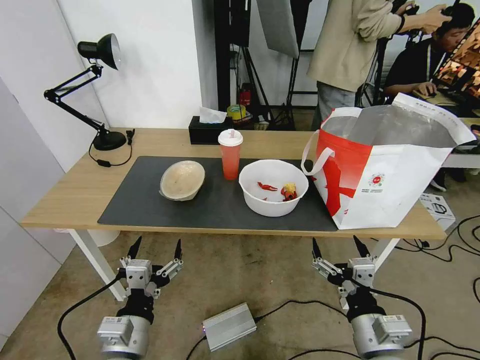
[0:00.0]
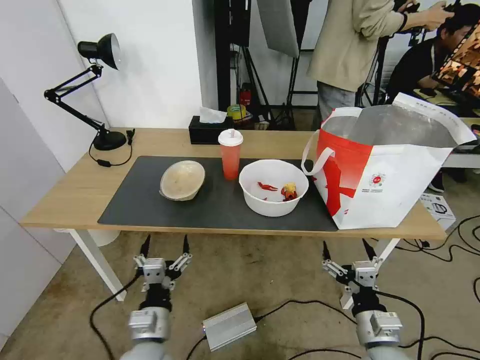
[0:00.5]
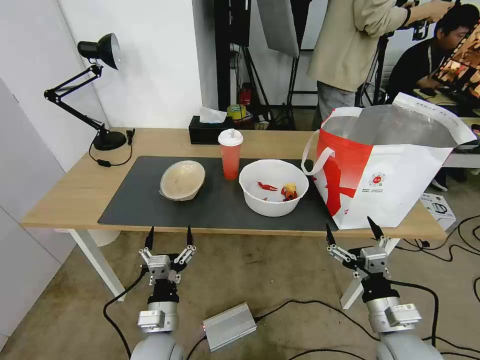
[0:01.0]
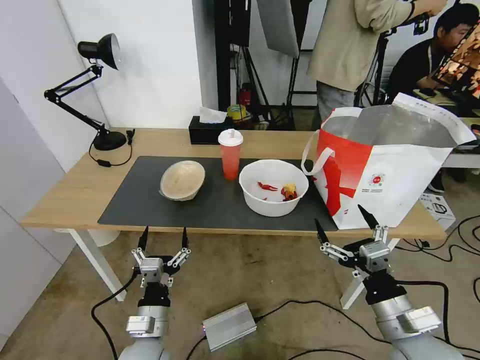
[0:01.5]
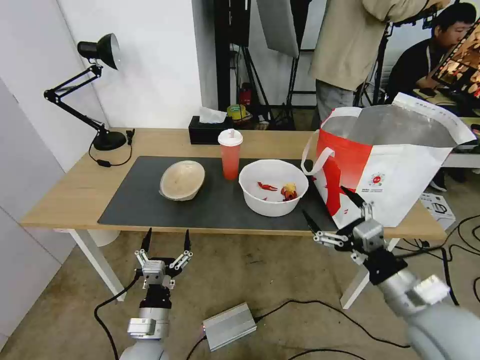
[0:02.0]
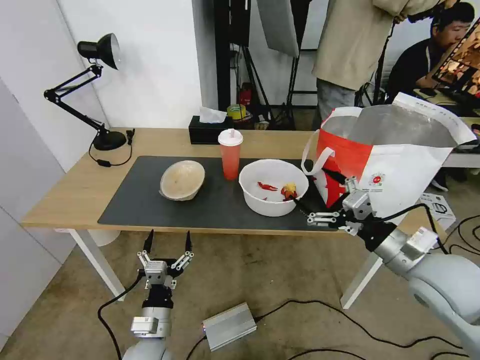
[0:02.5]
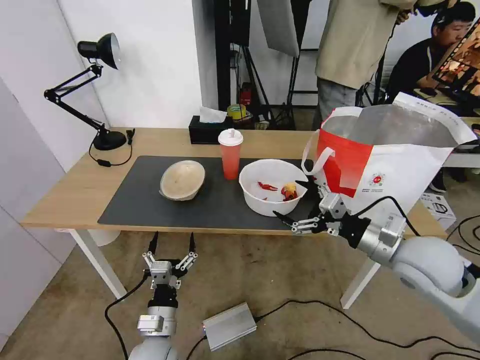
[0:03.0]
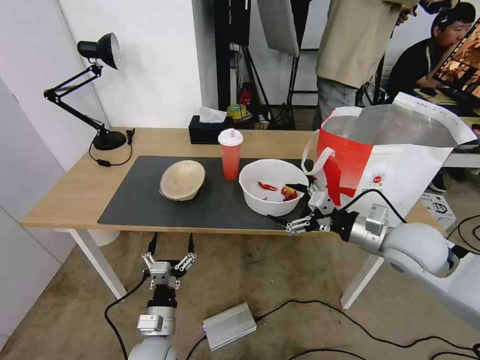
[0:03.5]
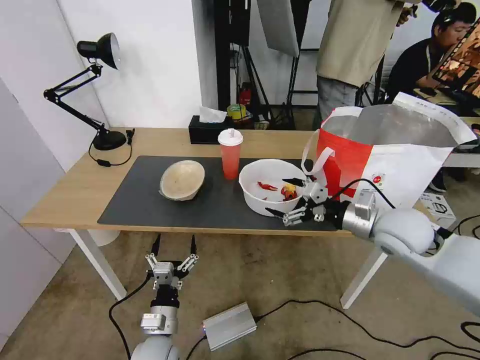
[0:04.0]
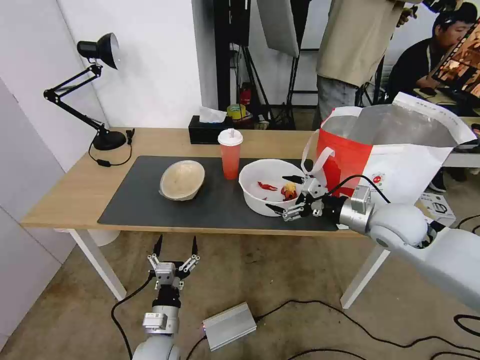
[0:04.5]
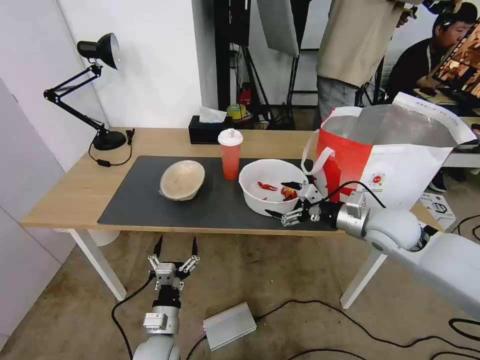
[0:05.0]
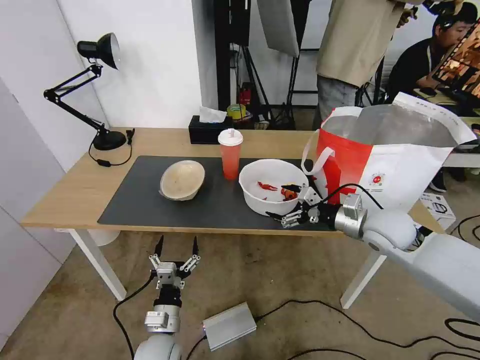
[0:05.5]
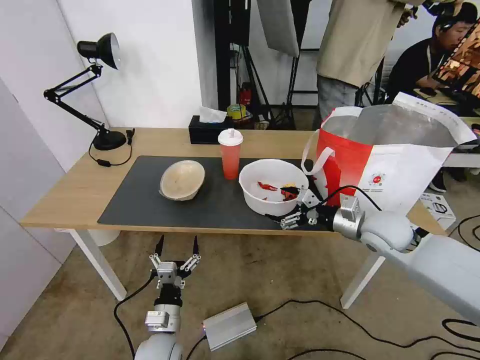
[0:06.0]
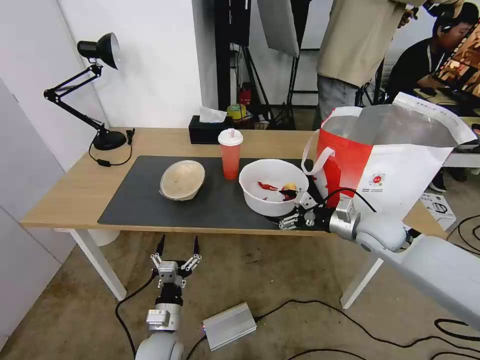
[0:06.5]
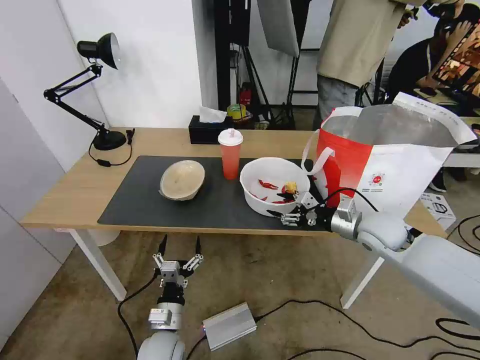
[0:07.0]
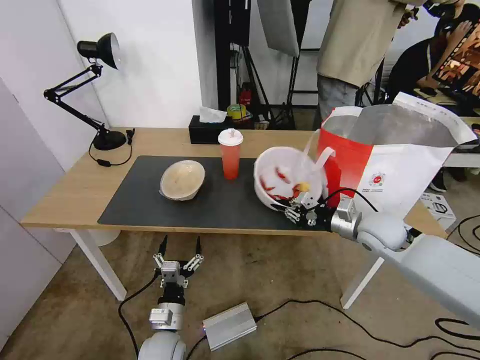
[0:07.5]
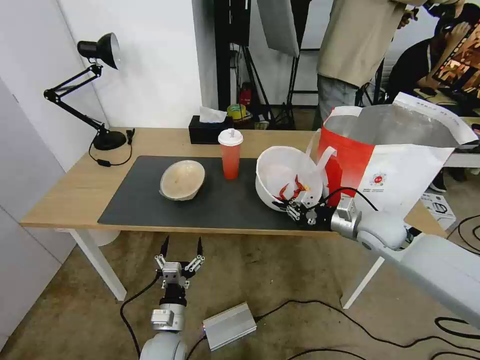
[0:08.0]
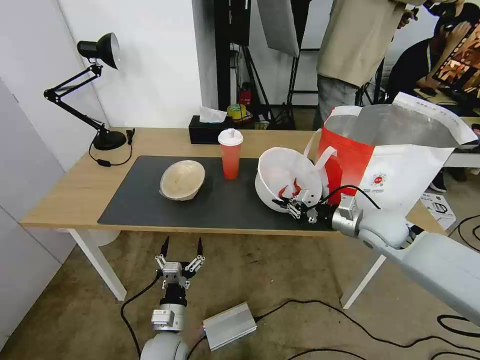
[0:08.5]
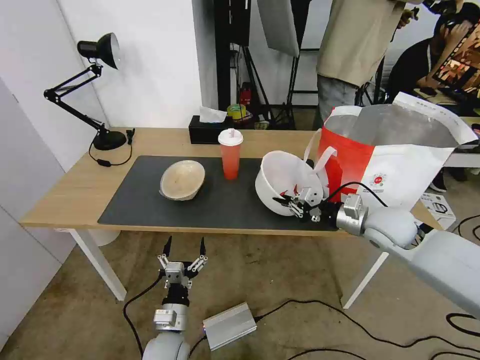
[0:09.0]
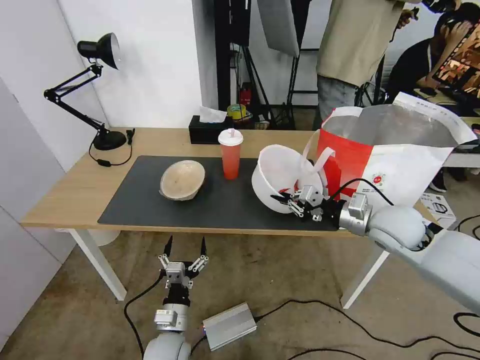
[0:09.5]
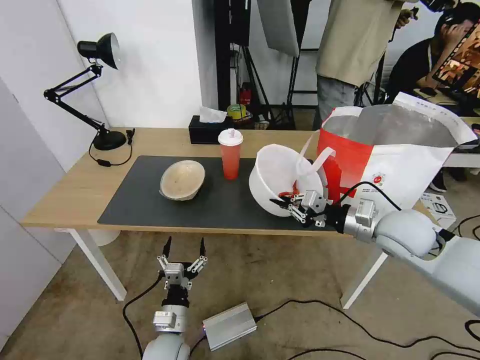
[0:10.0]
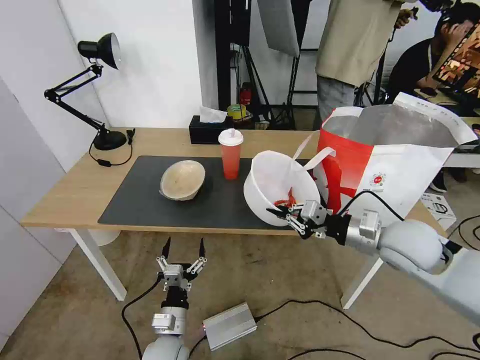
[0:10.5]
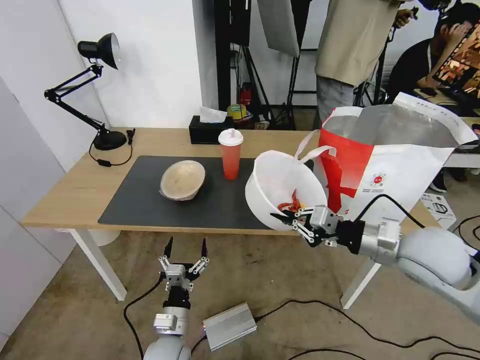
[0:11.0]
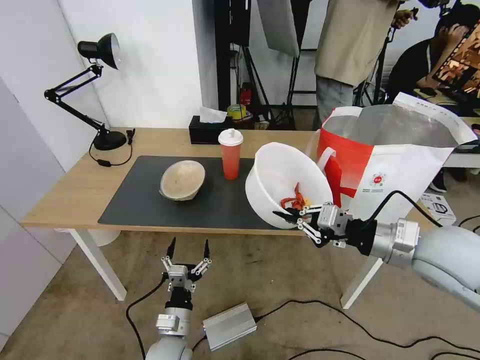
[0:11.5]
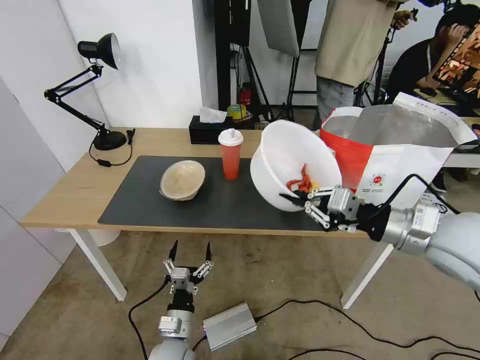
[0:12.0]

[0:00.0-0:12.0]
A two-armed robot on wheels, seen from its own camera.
Task of the whole recording: Pick up the trash from the table and place it into the takeout bag.
0:02.0 to 0:04.0: The right gripper moves forward, some 20 cm.
0:04.0 to 0:06.0: The right gripper shifts by about 5 cm.
0:06.0 to 0:08.0: The right gripper closes its fingers.
0:08.0 to 0:10.0: The right gripper heads upward, covering about 5 cm.
0:10.0 to 0:12.0: The right gripper heads upward and backward, covering roughly 10 cm.

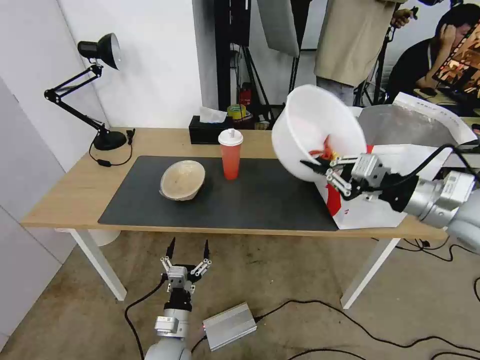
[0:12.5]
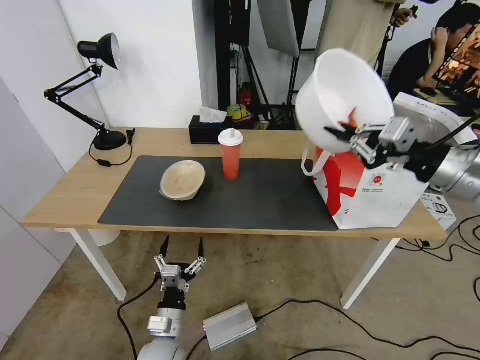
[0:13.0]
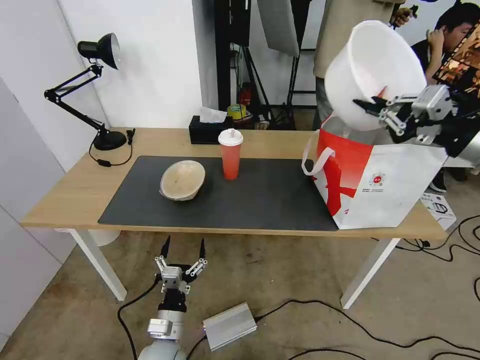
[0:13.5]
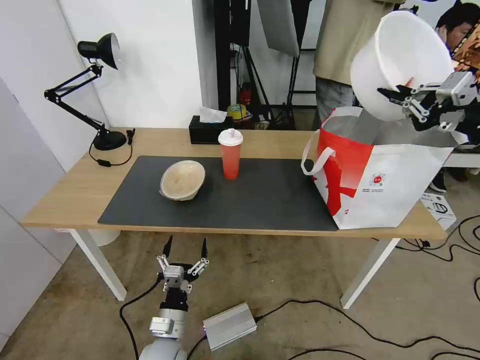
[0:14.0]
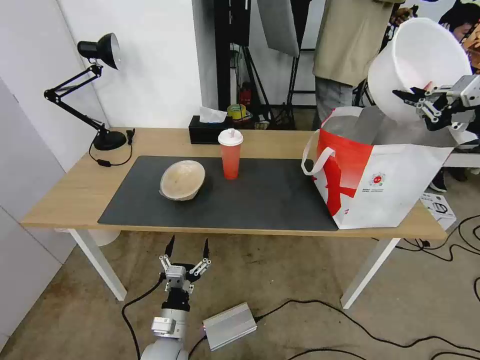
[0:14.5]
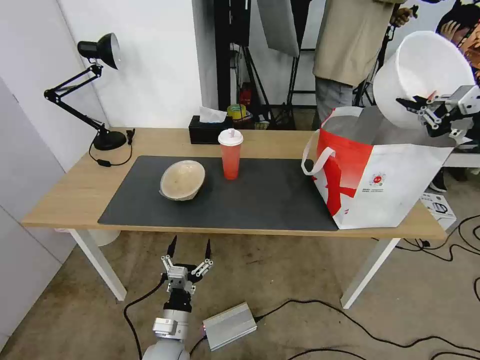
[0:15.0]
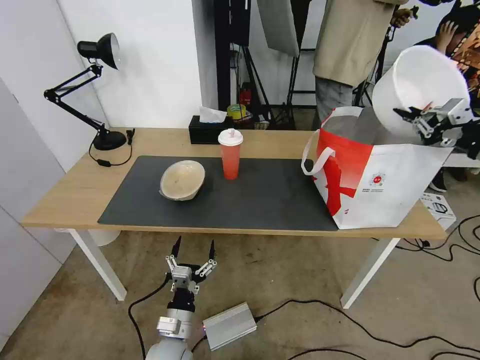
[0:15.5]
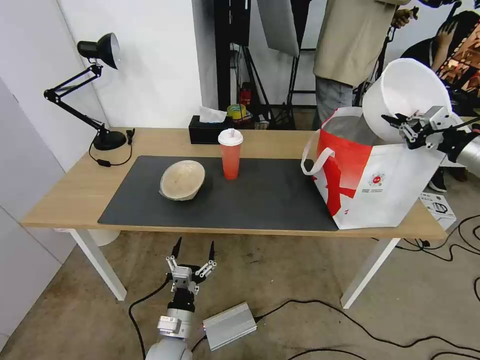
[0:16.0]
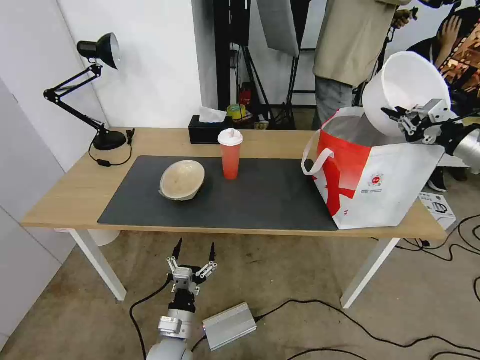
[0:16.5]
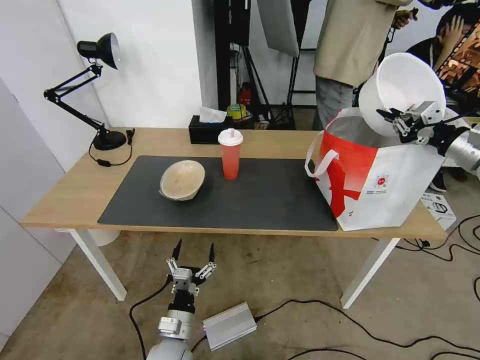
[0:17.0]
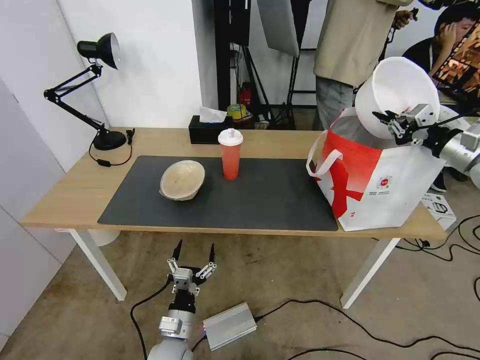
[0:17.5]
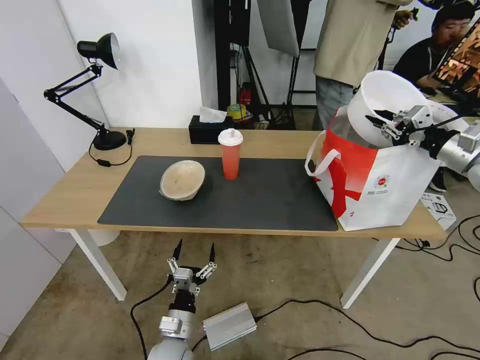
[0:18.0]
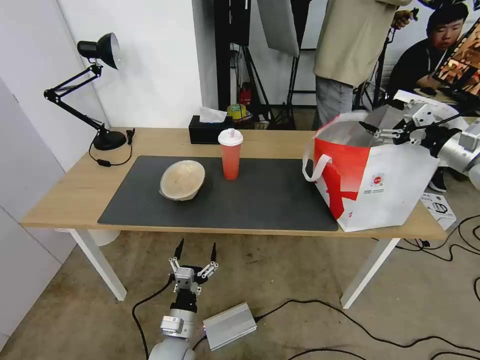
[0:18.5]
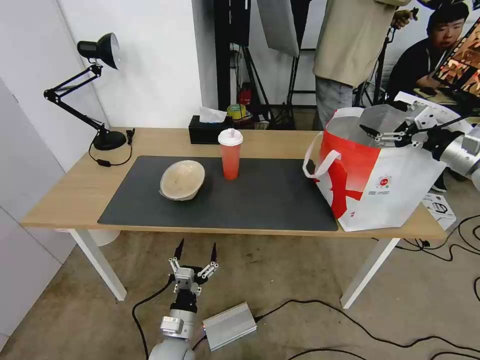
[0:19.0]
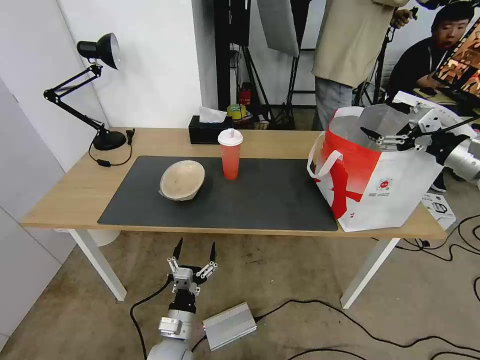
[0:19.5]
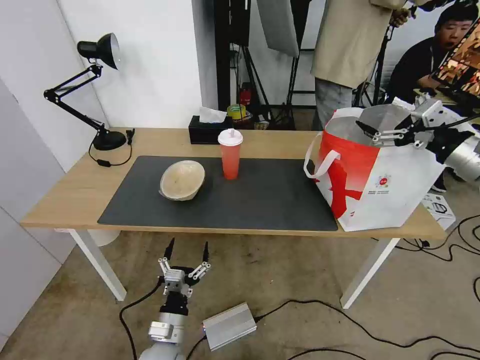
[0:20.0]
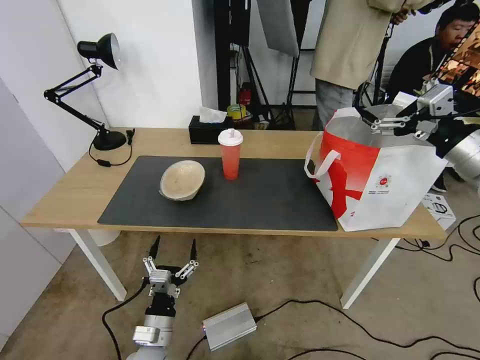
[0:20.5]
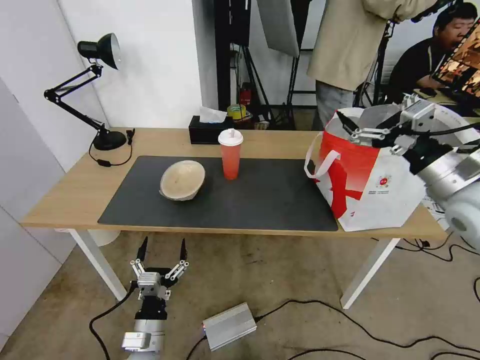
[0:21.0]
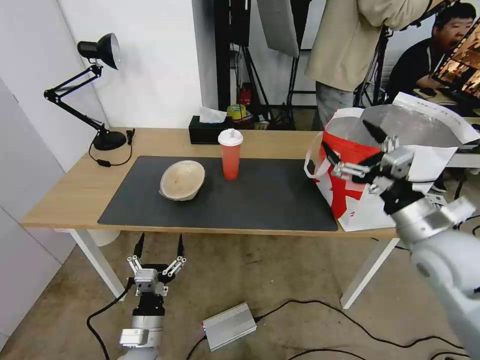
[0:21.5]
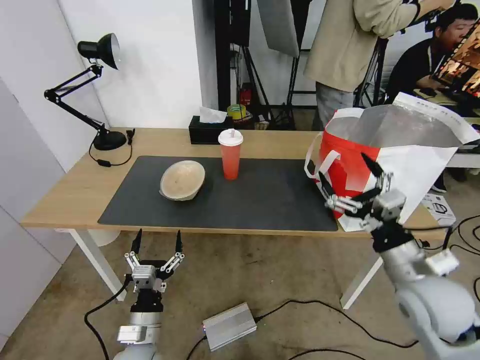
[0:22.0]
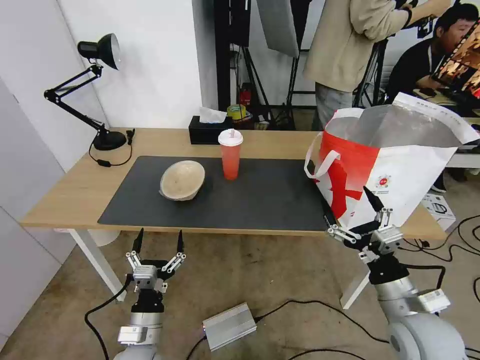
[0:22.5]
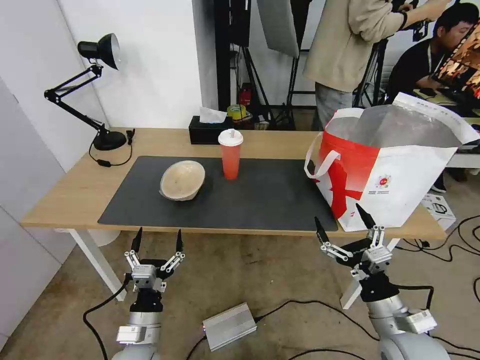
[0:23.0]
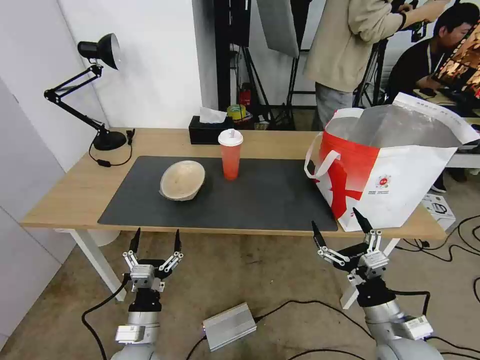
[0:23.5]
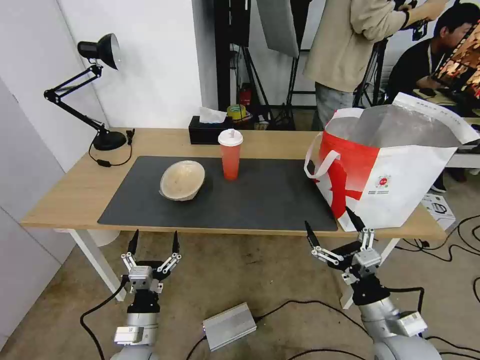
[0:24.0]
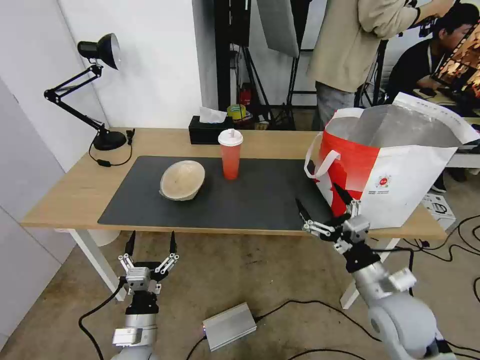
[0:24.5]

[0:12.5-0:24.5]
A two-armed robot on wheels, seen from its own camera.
Task of the whole recording: Pick up the trash from the table and place it into the takeout bag.
0:12.5 to 0:14.5: The right gripper shifts about 15 cm to the right, upward and forward.
0:14.5 to 0:16.5: The right gripper shifts approximately 10 cm downward and forward.
0:16.5 to 0:18.5: The right gripper opens its fingers.
0:18.5 to 0:20.5: The left gripper changes place by roughly 5 cm, while the right gripper shifts approximately 10 cm backward and to the left.
0:20.5 to 0:22.5: The right gripper is displaced downward, backward and to the left by about 30 cm.
0:22.5 to 0:24.5: The grippers move only a little.

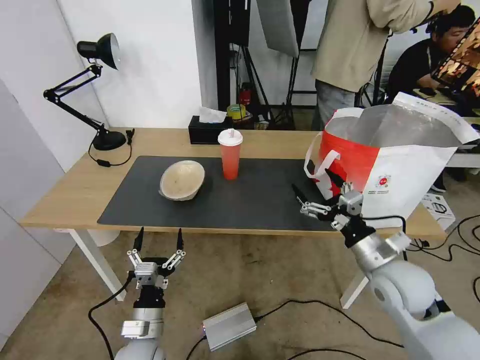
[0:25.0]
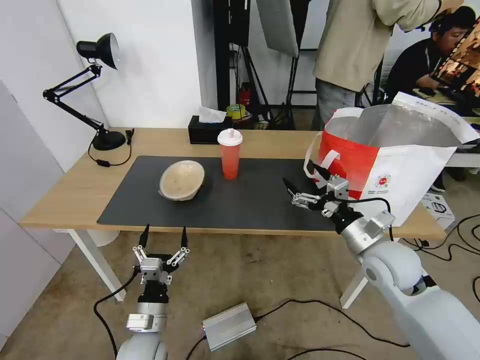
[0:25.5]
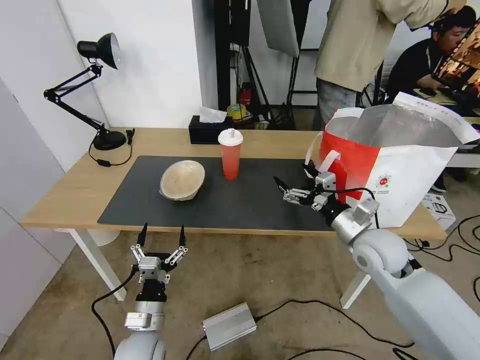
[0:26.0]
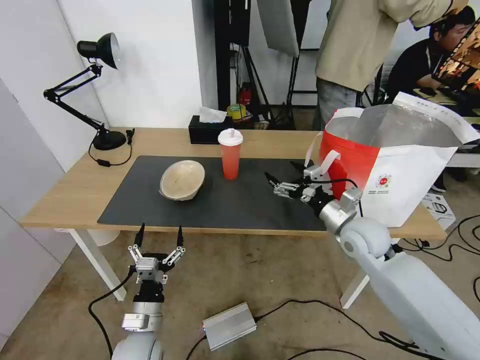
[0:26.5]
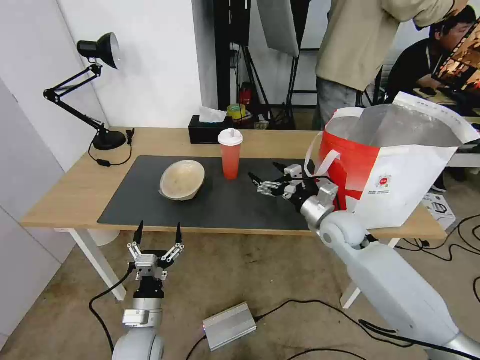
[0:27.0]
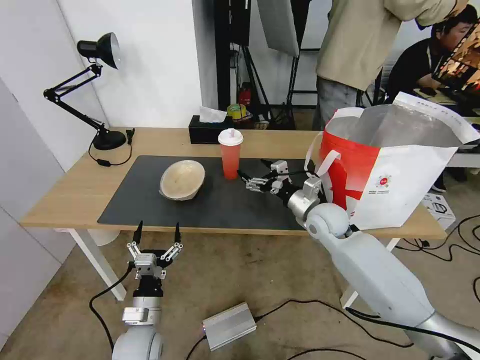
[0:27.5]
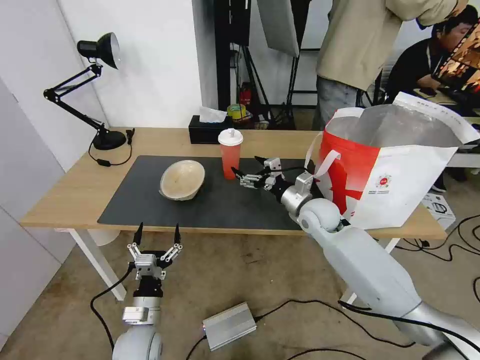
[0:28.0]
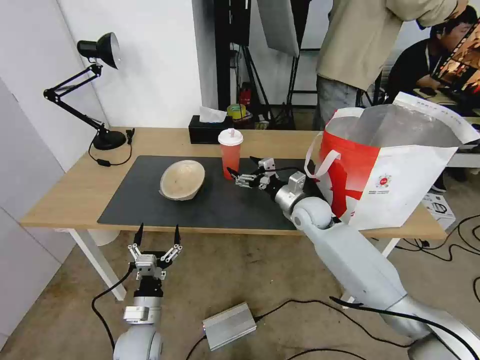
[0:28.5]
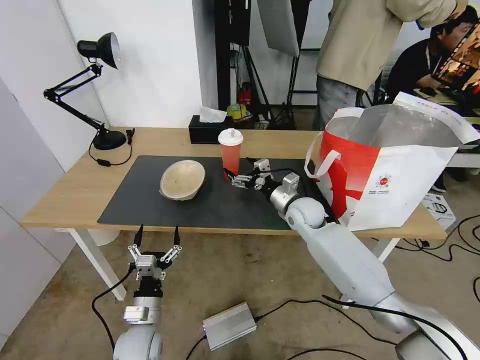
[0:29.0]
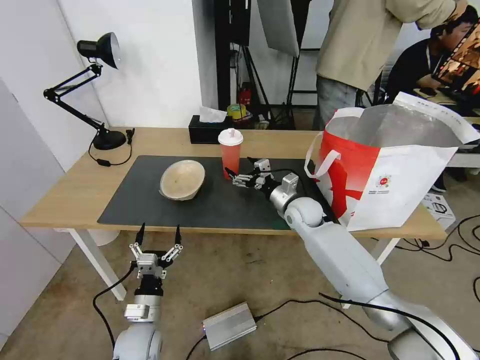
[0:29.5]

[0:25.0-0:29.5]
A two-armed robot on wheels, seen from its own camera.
Task of the whole recording: Pick up the trash from the table and place it into the takeout bag.
0:25.0 to 0:27.0: The right gripper shifts some 15 cm forward and to the left.
0:27.0 to 0:29.5: The right gripper moves forward and to the left, some 10 cm.
